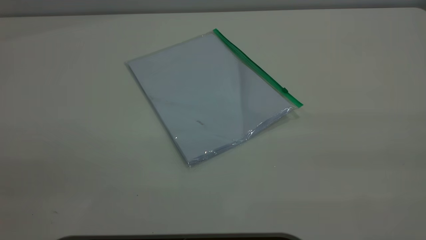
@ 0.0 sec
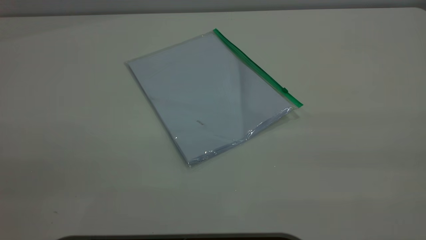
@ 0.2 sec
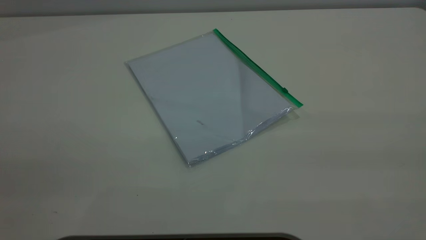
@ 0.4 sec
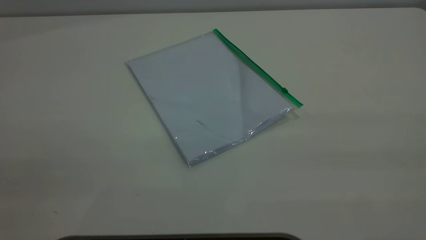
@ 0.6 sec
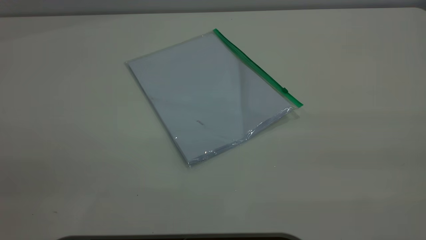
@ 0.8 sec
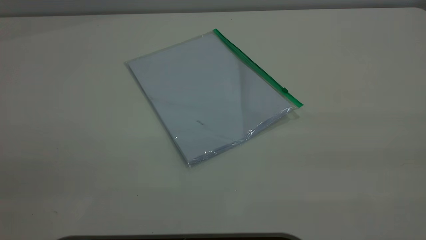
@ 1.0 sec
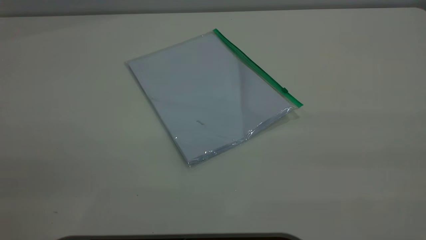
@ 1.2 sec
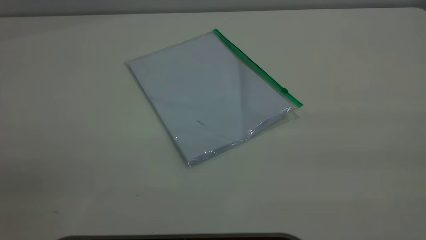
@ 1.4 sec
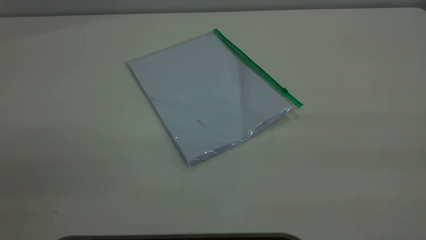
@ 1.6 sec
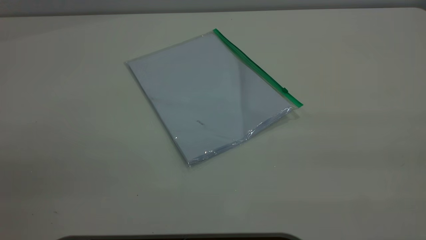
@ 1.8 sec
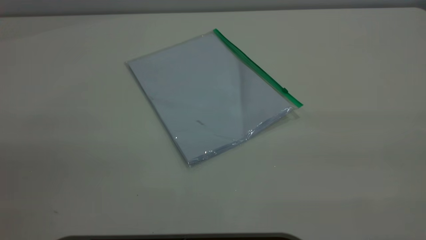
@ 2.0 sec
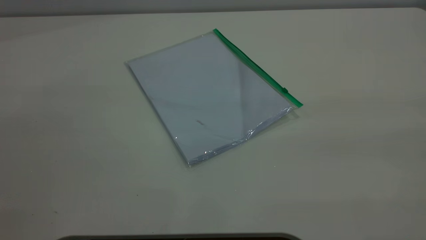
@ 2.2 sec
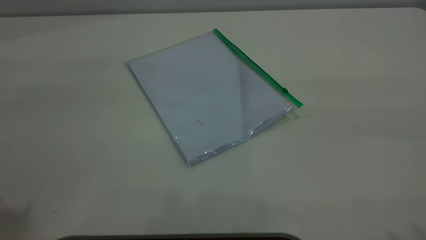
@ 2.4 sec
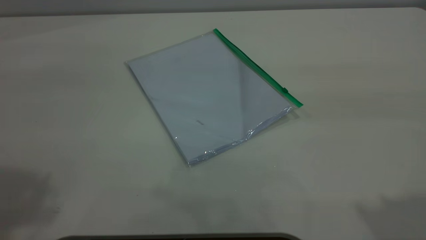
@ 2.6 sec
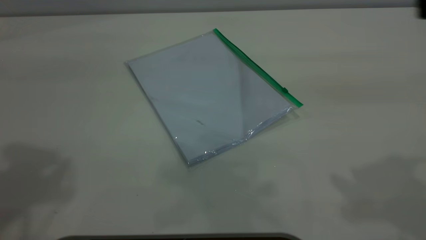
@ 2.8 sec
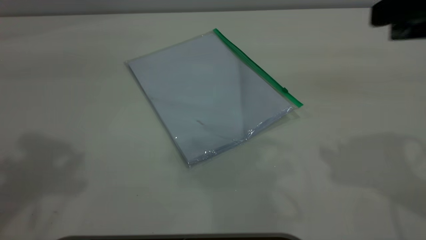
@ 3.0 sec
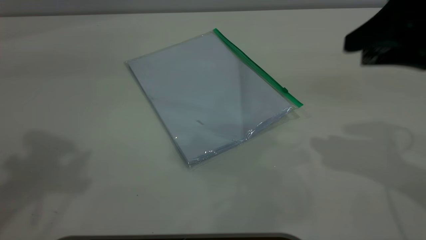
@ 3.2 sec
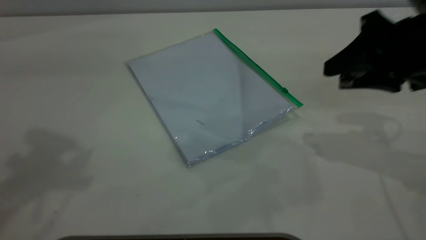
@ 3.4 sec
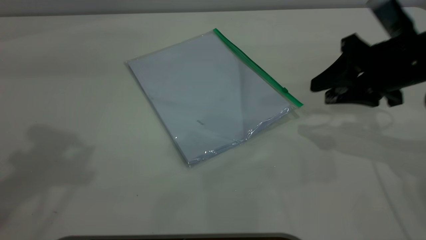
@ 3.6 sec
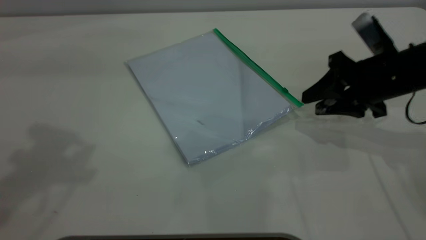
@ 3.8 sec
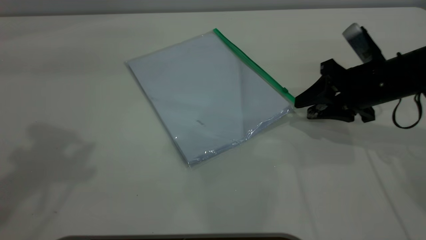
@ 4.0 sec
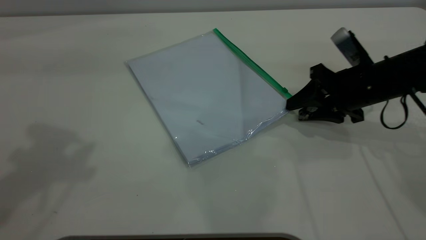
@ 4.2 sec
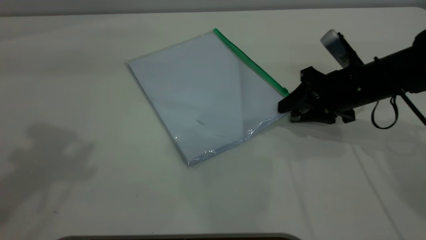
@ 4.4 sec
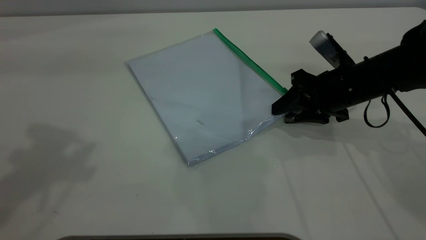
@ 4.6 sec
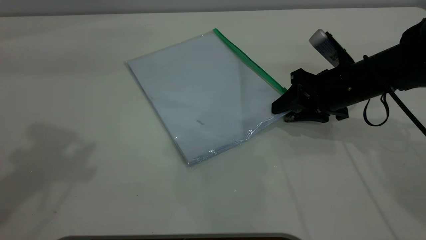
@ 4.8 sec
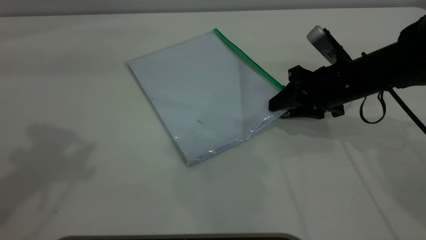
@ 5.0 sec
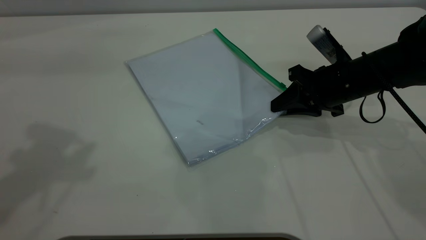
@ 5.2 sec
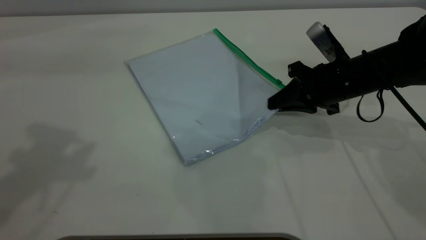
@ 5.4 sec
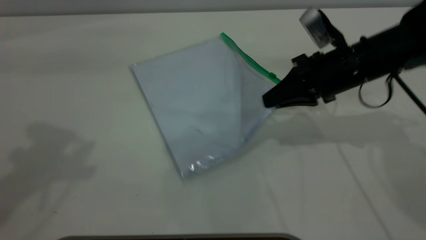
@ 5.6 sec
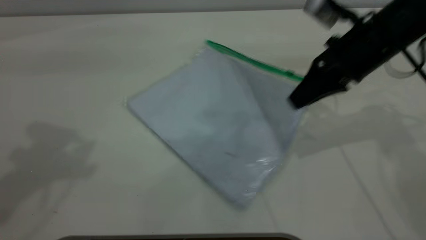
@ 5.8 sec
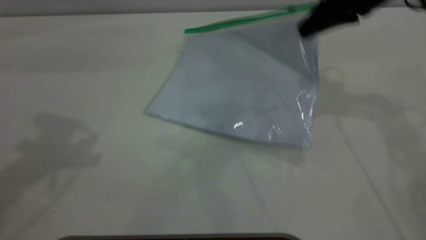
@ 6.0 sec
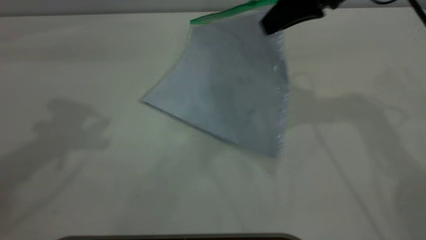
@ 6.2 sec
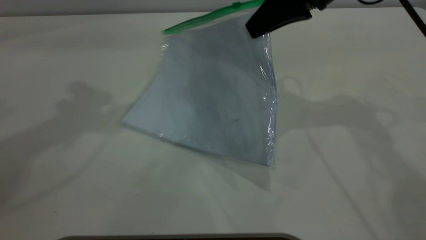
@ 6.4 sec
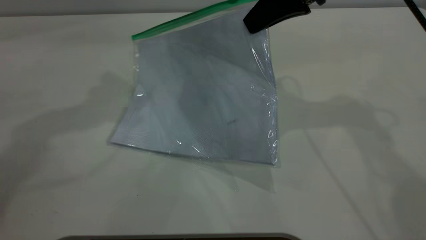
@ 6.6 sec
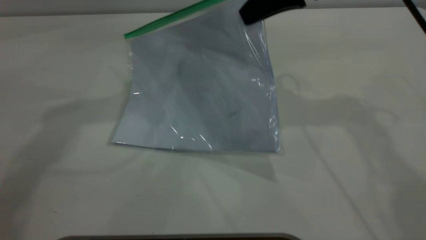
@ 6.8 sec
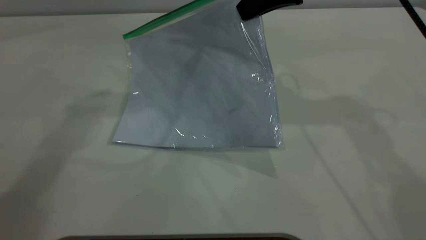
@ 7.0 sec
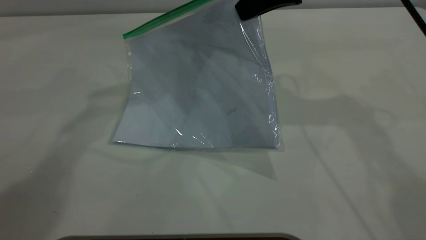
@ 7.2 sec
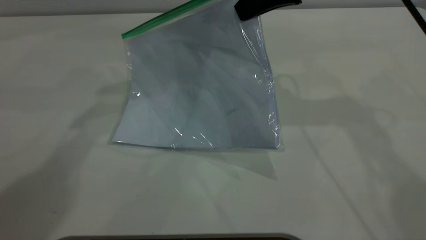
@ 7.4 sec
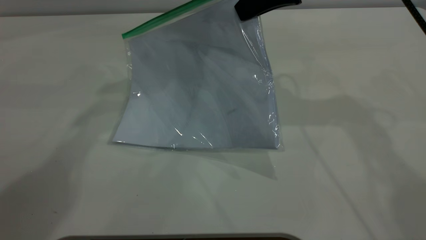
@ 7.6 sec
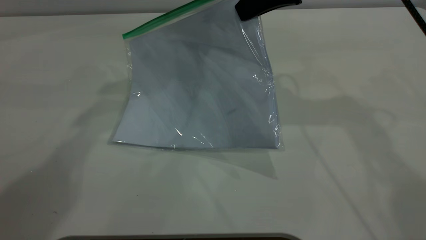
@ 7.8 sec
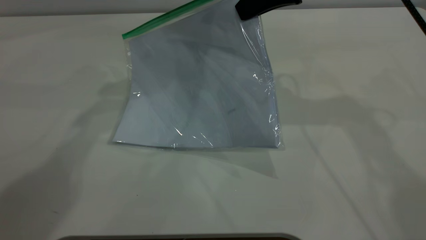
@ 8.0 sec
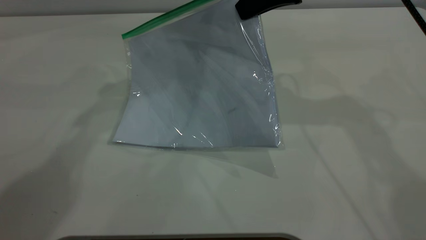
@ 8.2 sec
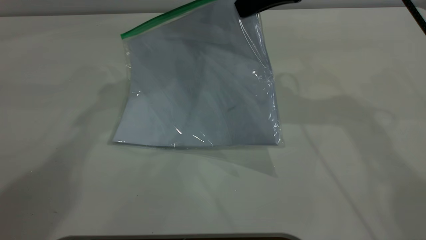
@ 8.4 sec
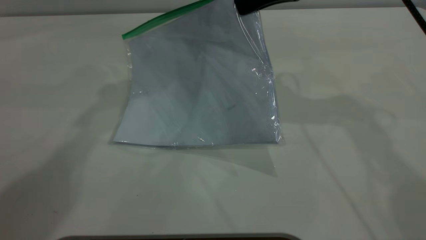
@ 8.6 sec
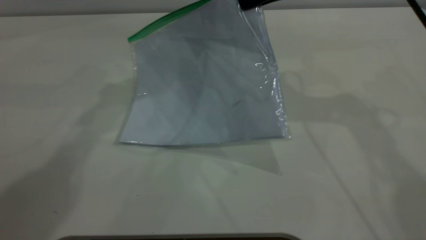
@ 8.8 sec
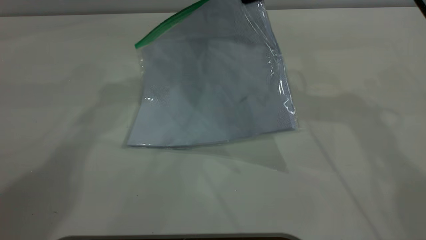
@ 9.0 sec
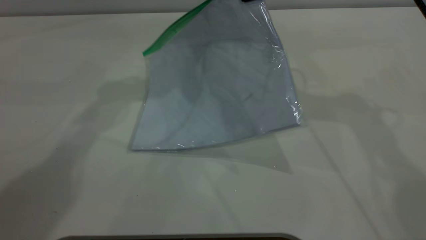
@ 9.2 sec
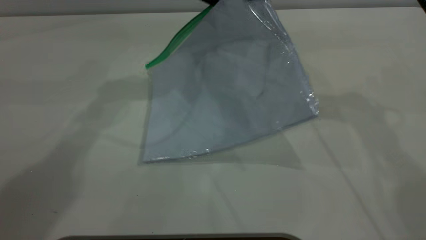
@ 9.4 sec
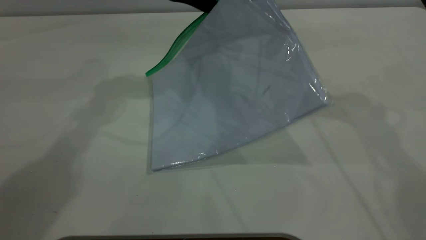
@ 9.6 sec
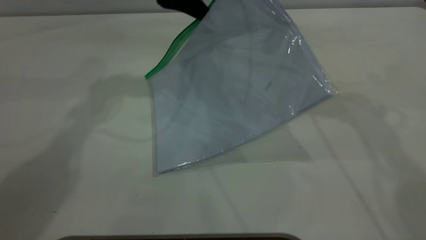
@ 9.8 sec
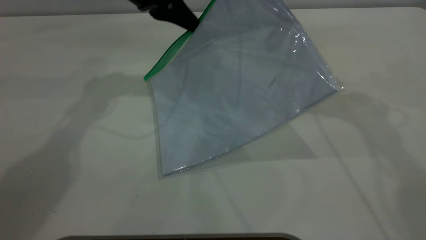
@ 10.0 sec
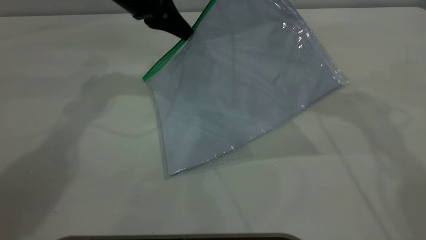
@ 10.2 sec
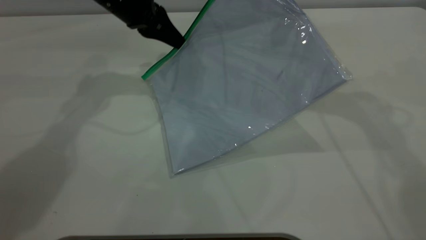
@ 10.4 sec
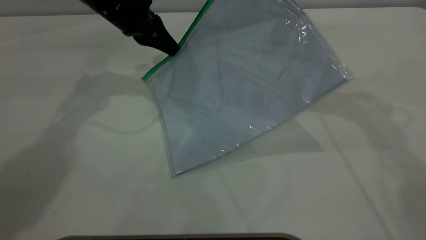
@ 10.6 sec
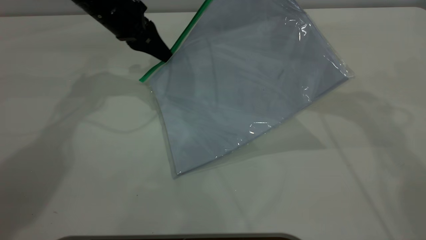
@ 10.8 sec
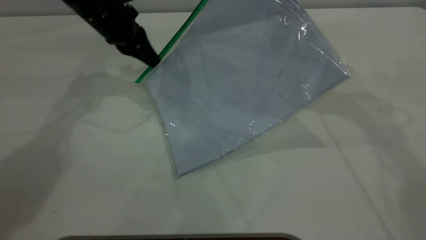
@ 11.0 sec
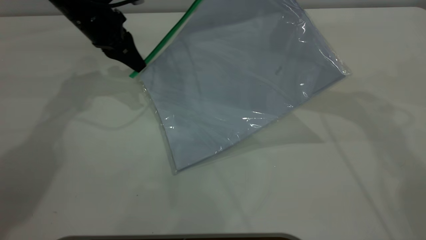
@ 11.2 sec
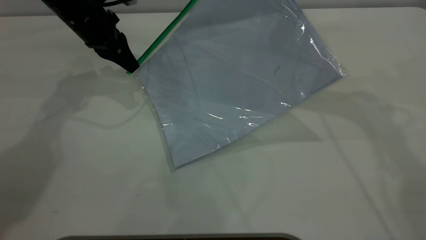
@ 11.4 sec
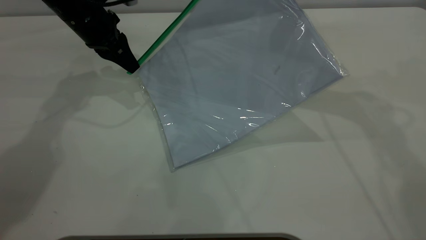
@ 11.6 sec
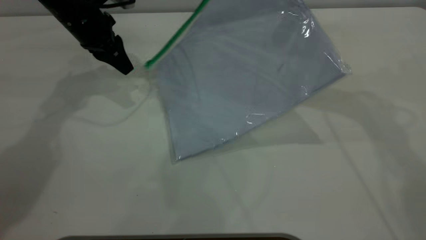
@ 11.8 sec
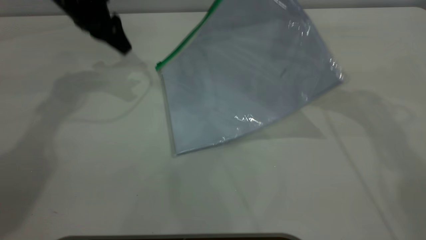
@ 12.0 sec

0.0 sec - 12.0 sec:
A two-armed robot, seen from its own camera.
Step, 0.0 sec - 5.4 sec: Pick up the transparent plastic bag with the right gripper.
Step, 5.6 sec - 11.8 sec: Pulling up the zipper on the transparent plastic bag with the left gripper to close it.
0.0 sec - 1.6 sec: Both grippers stay about where they are.
1.6 sec - 3.0 sec: The right gripper goes roughly 25 cm forward and downward, and opens its fingers.
3.0 sec - 4.4 sec: The right gripper heads downward and forward, covering approximately 25 cm.
4.4 sec - 6.0 sec: The right gripper goes some 15 cm upward, and closes its fingers.
6.0 sec - 7.6 sec: The left gripper goes approximately 25 cm to the right, forward and downward; the right gripper shifts about 5 cm to the left.
7.6 sec - 9.0 sec: The left gripper closes up.
9.0 sec - 10.4 sec: The left gripper moves downward and to the left, about 10 cm.
10.4 sec - 12.0 sec: The left gripper heads to the left, covering approximately 5 cm, and opens up.

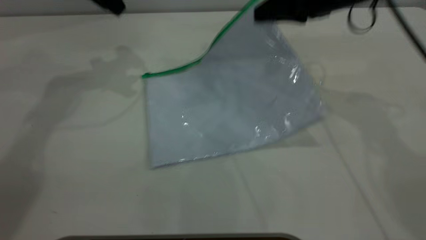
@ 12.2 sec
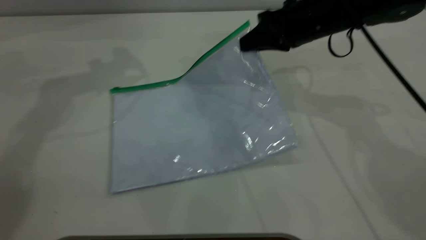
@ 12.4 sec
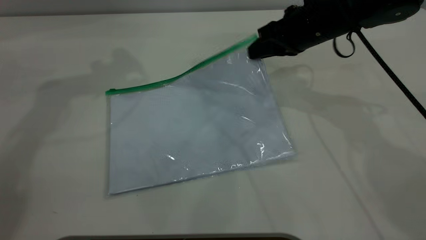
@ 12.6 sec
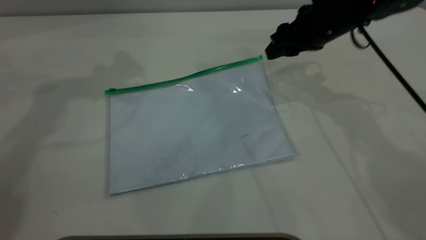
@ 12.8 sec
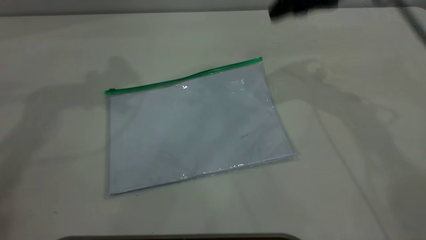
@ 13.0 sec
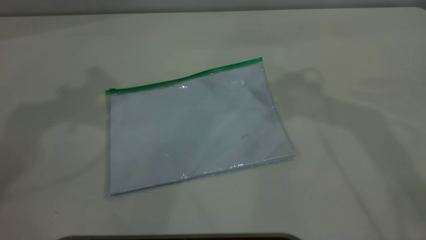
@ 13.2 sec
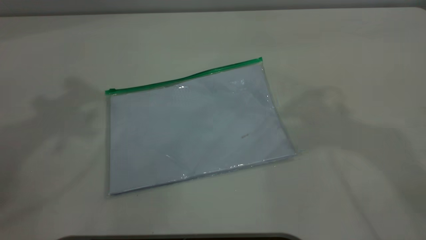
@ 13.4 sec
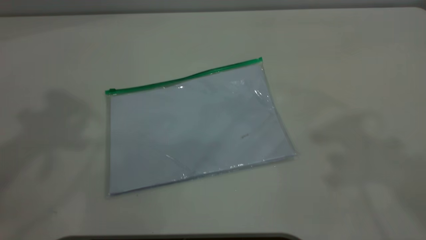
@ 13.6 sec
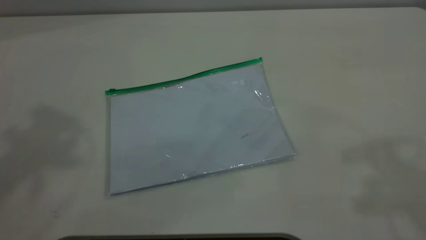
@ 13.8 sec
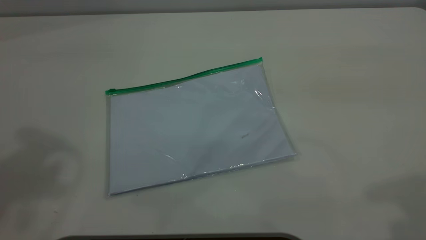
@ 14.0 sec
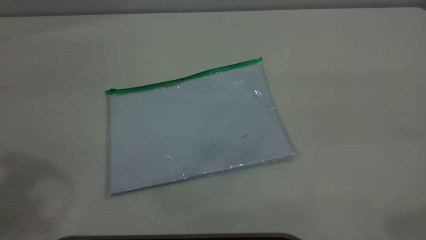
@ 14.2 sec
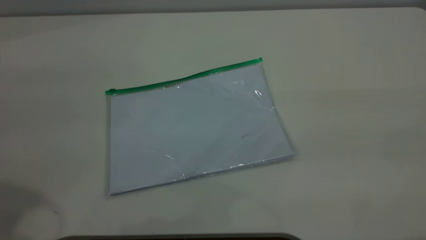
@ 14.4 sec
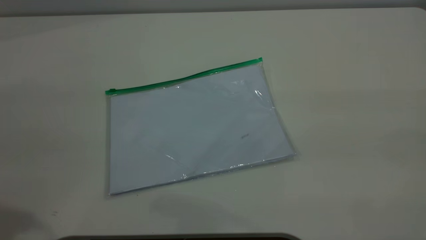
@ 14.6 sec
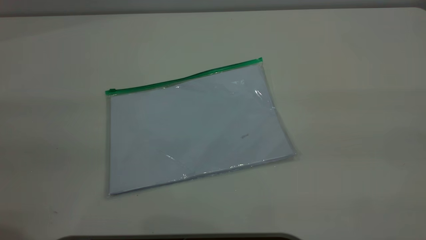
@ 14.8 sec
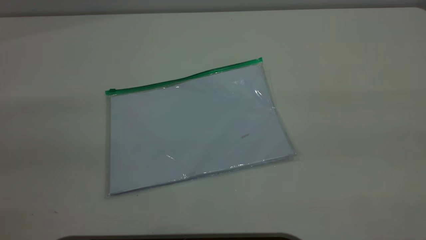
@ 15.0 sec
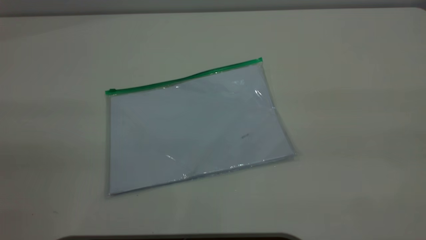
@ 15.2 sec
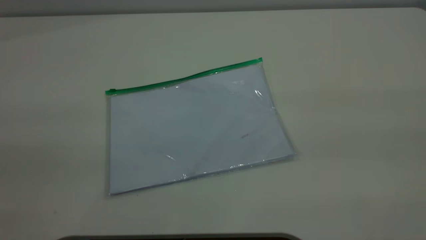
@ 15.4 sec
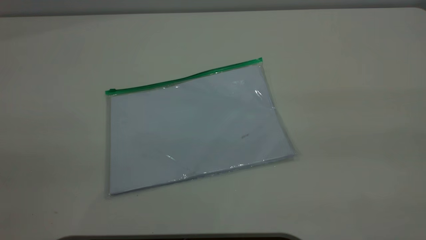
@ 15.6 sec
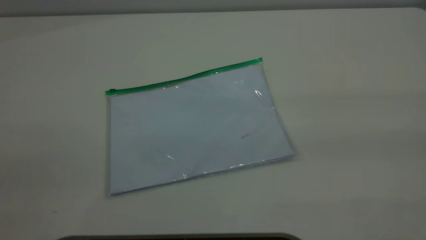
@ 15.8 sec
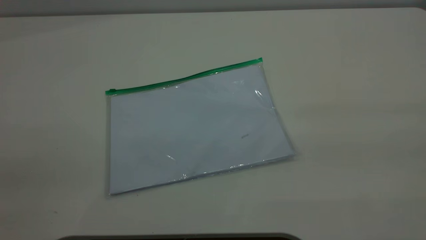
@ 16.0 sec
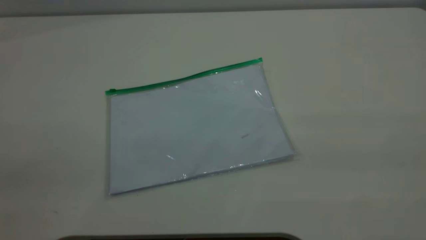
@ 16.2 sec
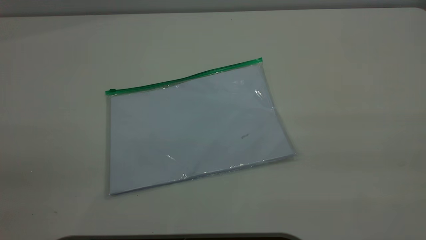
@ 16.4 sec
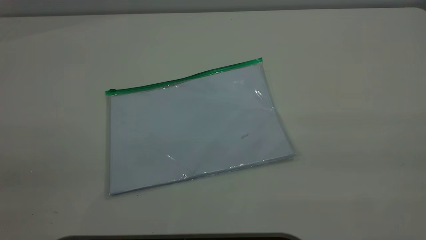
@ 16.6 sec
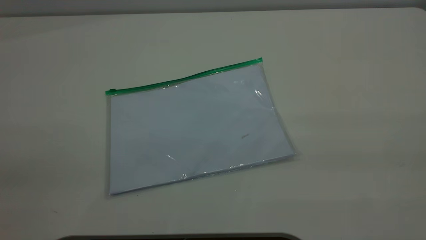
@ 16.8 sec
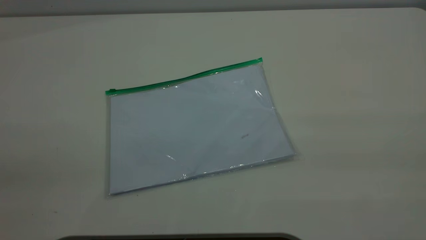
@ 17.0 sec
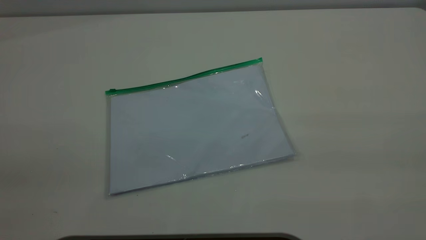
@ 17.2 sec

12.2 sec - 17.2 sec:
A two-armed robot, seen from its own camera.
Step, 12.2 sec - 12.8 sec: Place the transparent plastic bag.
12.2 sec - 13.8 sec: The grippers both shift upward and backward by approximately 35 cm. The right gripper opens its fingers.
